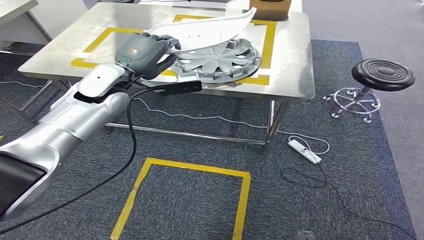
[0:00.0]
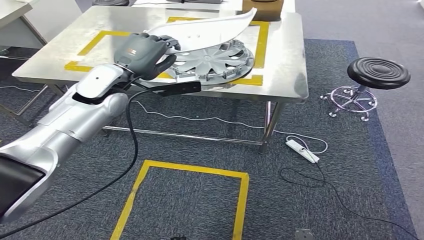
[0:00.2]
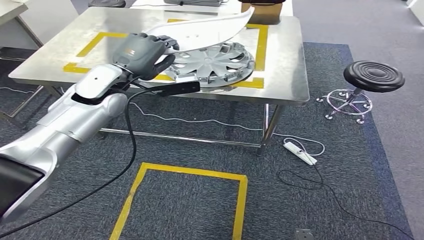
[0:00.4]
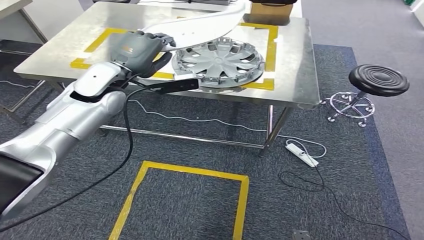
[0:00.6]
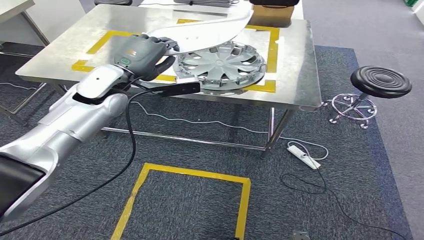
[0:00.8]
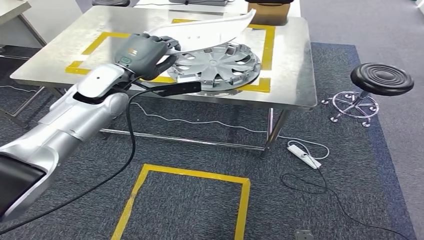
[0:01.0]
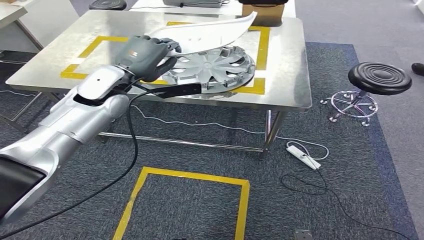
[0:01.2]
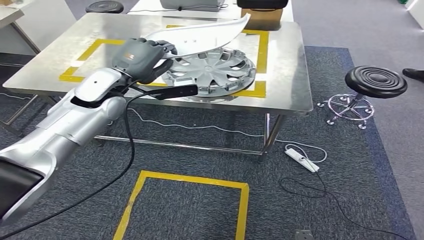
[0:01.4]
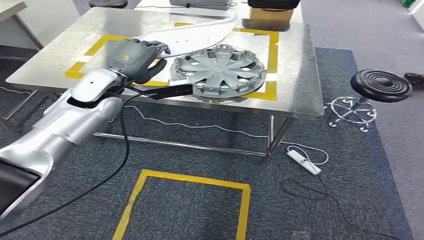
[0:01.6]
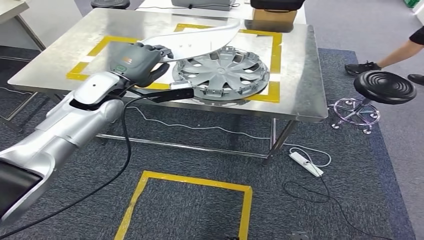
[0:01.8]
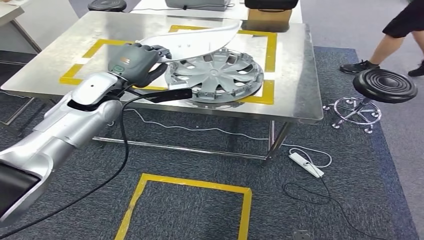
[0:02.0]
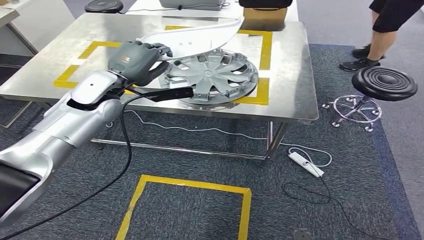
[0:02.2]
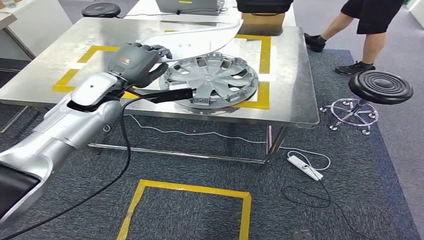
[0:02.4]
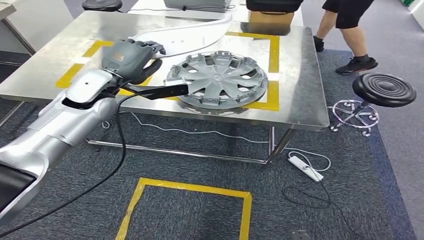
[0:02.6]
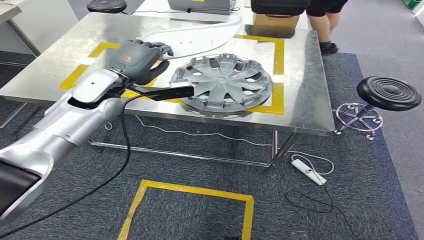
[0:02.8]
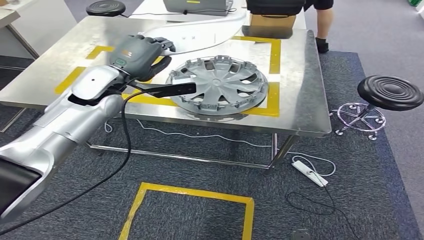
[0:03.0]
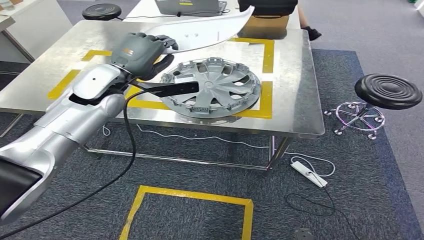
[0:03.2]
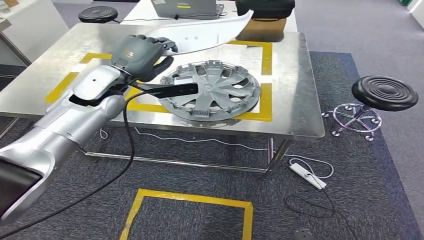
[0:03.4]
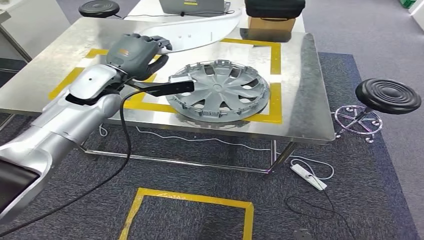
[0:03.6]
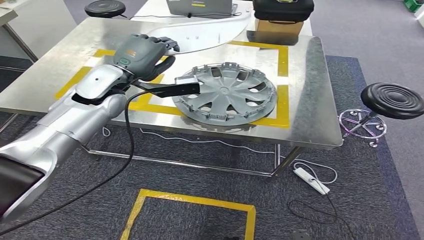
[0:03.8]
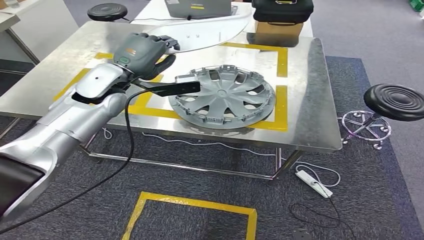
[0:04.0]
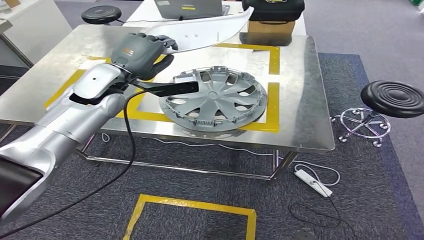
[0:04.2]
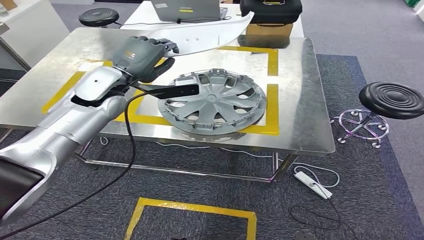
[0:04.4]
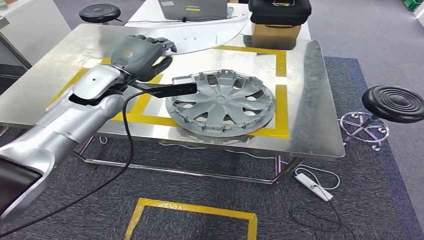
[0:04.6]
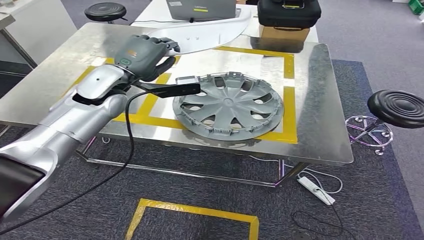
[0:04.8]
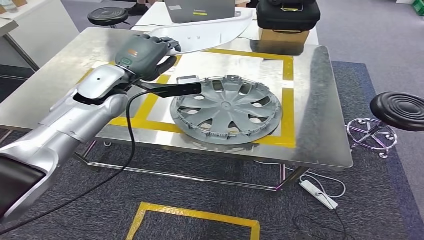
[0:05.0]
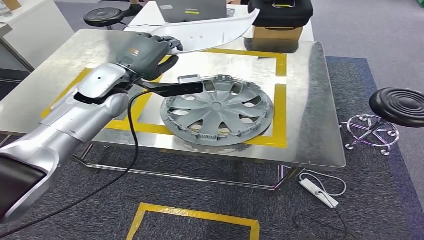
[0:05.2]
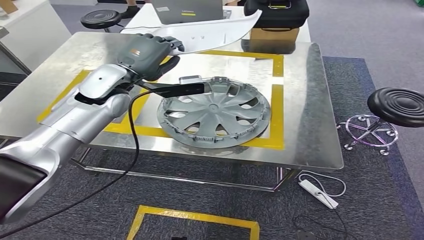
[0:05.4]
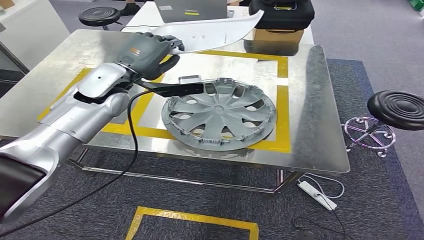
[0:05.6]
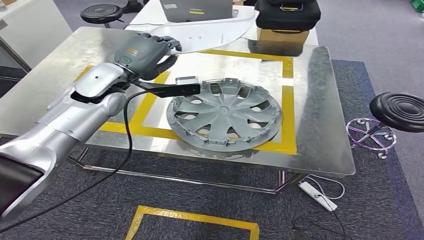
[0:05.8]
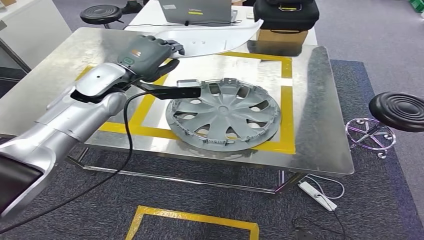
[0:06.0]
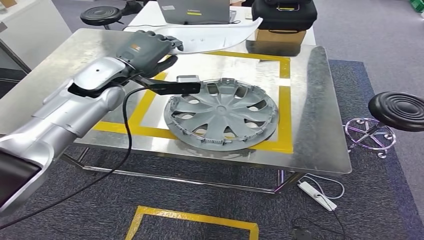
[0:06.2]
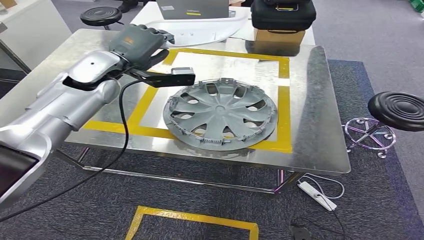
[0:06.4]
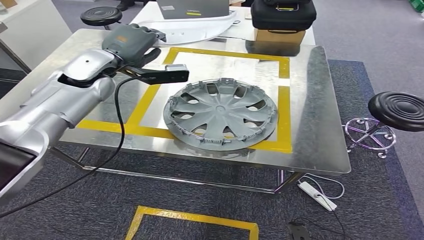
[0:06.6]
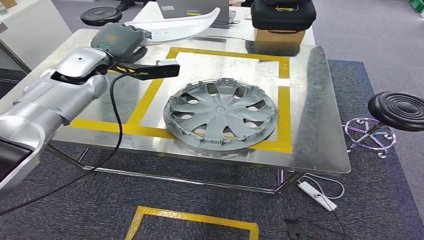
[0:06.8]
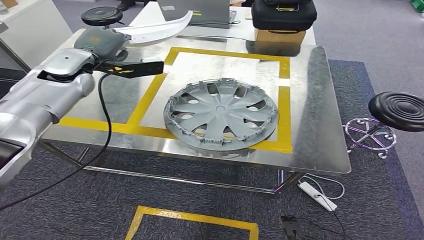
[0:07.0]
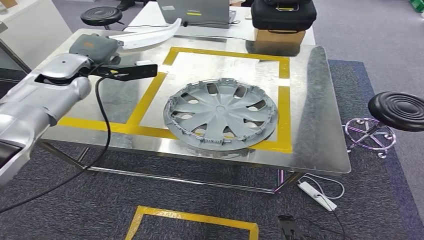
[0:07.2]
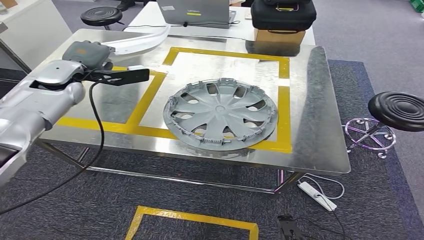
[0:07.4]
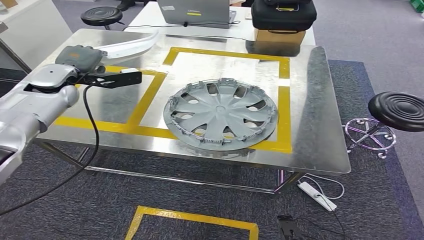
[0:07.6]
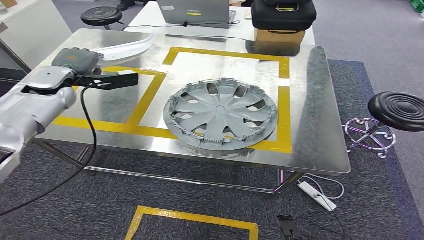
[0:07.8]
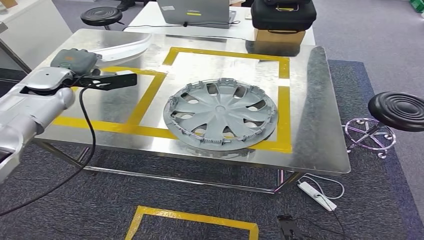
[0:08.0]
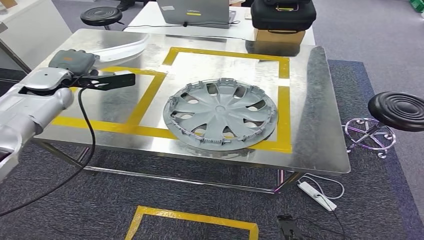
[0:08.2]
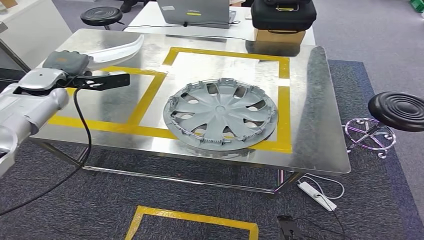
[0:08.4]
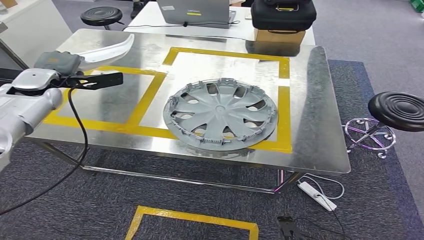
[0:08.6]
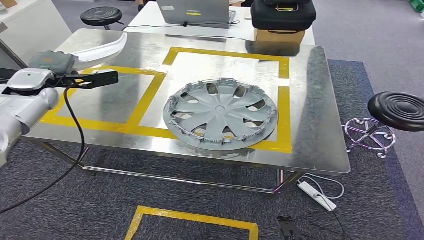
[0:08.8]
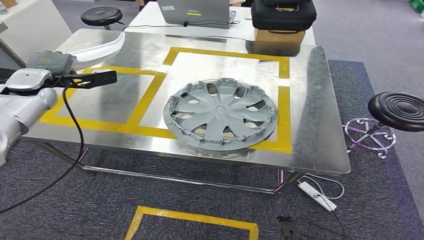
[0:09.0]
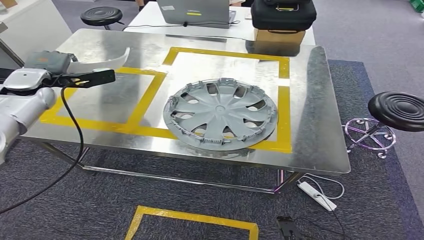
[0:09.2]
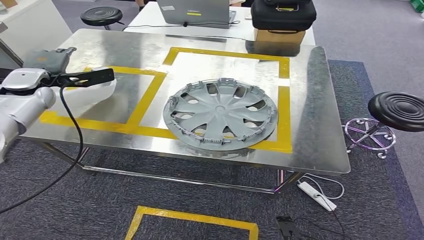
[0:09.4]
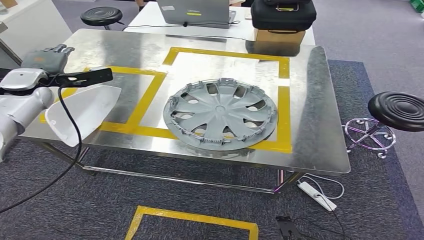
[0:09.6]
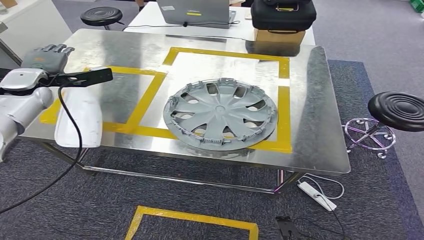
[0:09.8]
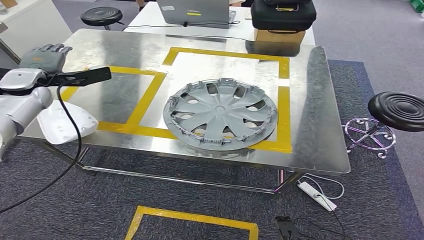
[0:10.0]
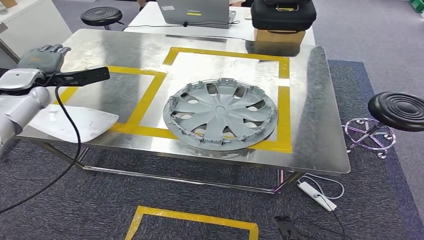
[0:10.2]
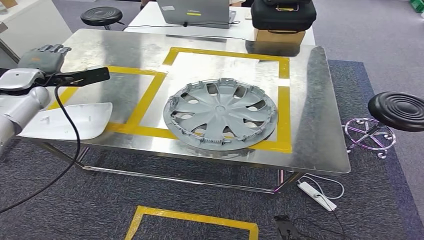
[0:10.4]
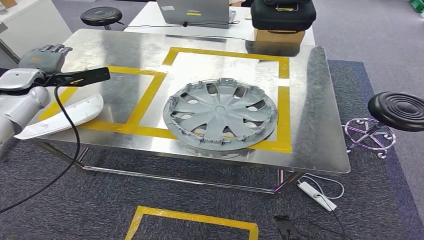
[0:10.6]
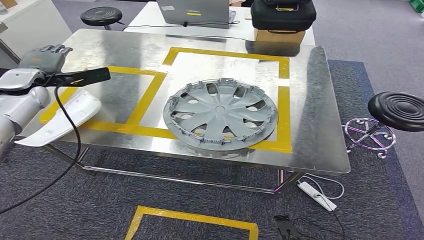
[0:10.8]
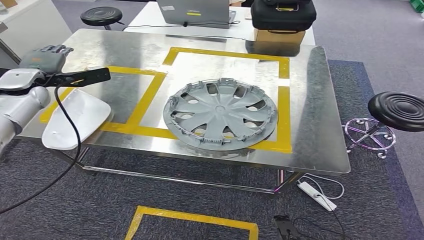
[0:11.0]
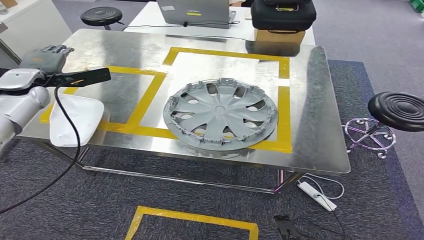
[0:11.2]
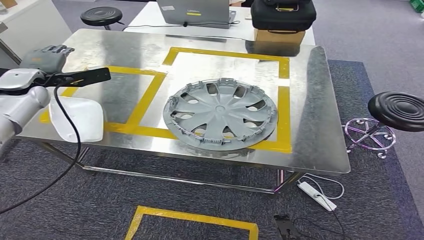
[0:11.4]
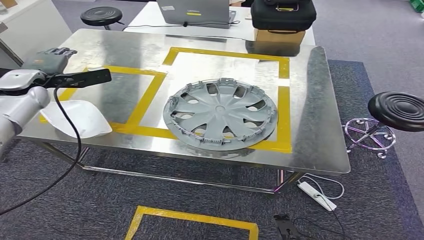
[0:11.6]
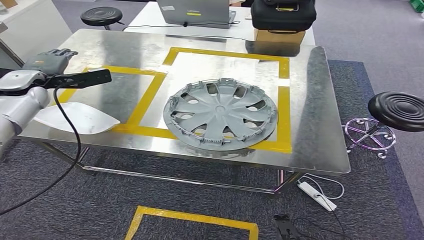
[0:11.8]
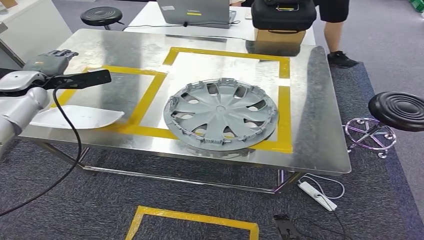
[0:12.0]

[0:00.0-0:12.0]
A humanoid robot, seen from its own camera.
Step, 0:00.0 to 0:11.6: Insert the small component into the corresponding slot on the workbench.
0:07.6 to 0:09.0: The left hand goes approximately 5 cm to the left.
0:09.0 to 0:12.0: There are only small adjustments of the hands.

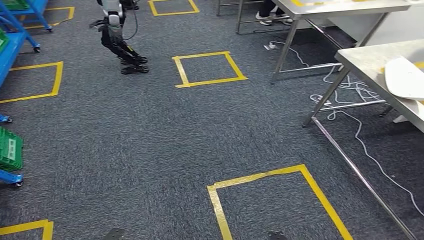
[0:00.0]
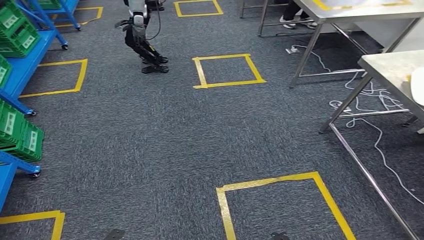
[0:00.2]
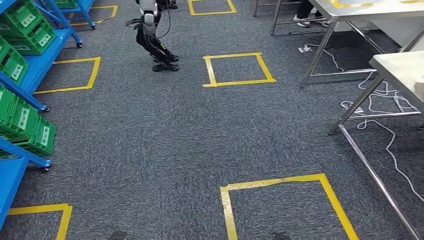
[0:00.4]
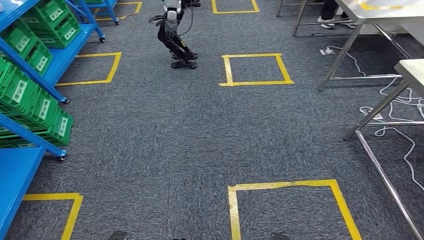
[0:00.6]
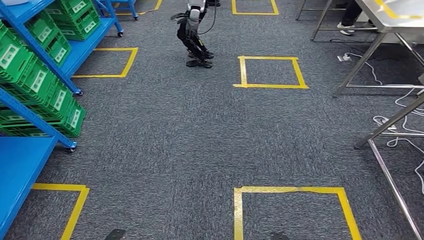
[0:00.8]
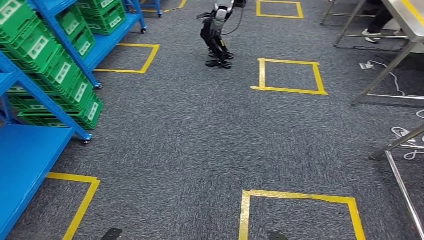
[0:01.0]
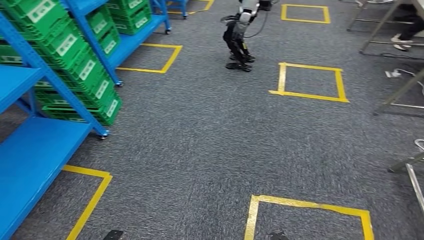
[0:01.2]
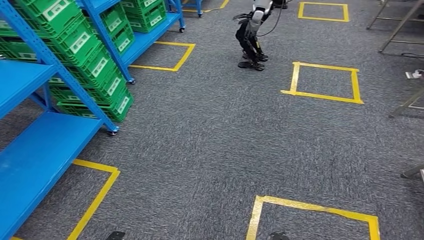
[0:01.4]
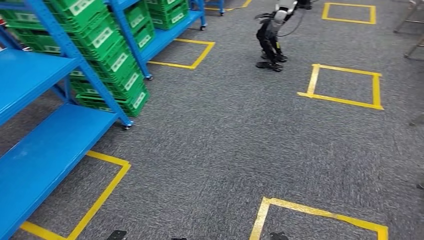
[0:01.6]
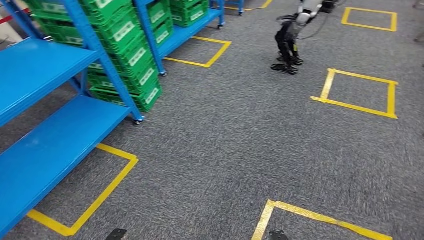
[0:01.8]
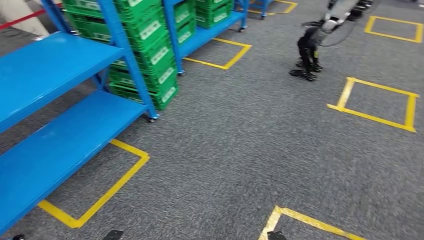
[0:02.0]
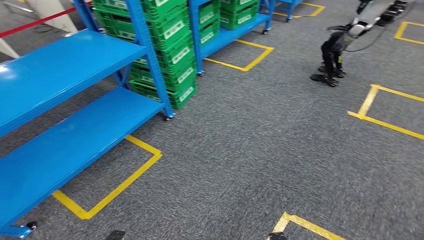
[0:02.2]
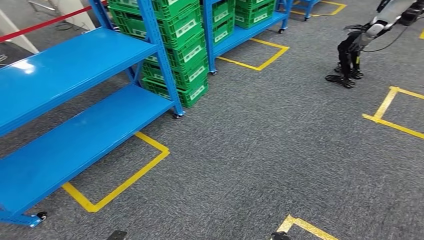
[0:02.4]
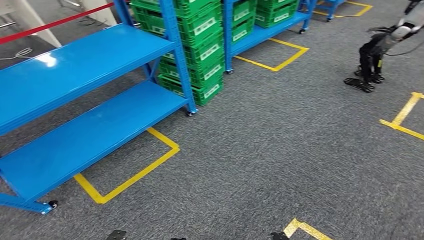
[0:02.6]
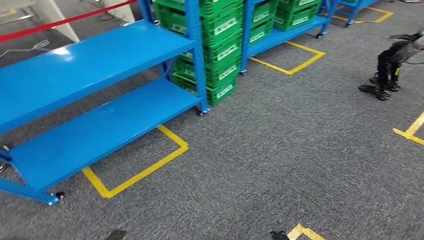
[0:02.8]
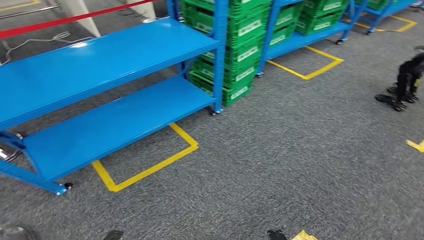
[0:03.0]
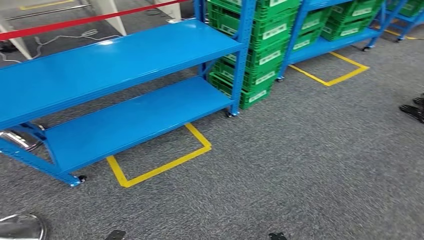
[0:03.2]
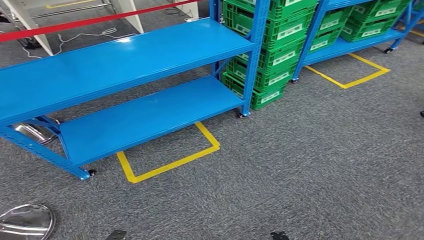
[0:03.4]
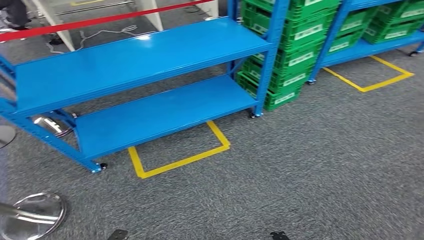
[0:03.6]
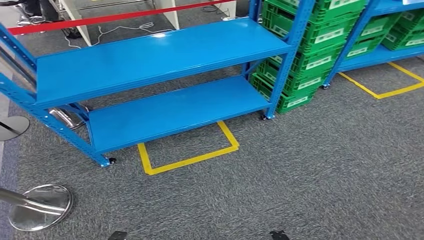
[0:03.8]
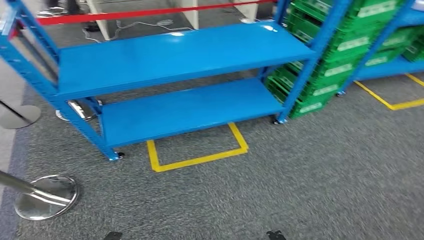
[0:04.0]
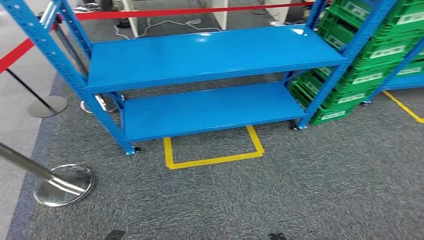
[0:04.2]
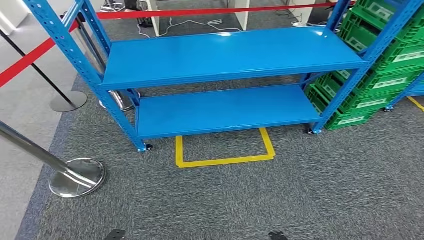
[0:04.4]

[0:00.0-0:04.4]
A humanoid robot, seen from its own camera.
Step, 0:00.0 to 0:04.2: Return to the initial position at the workbench.
